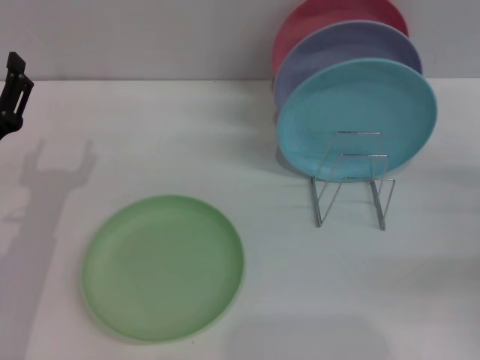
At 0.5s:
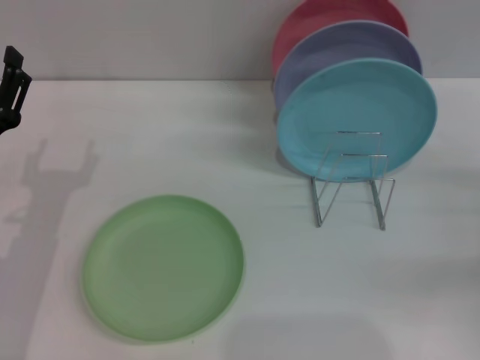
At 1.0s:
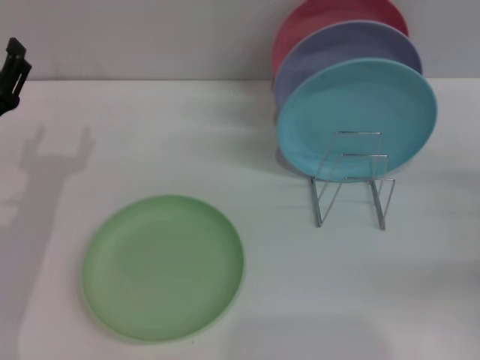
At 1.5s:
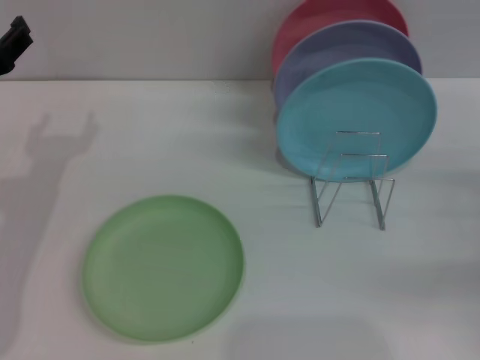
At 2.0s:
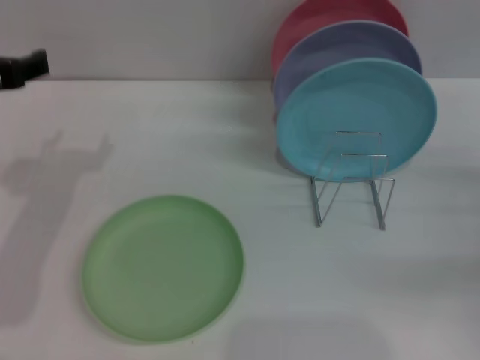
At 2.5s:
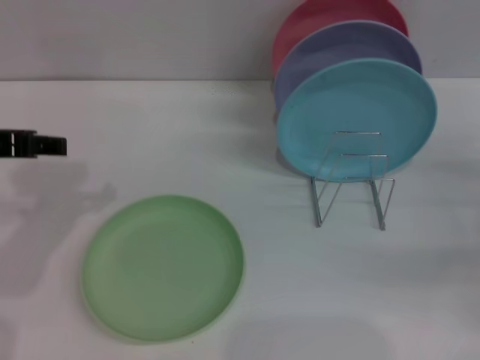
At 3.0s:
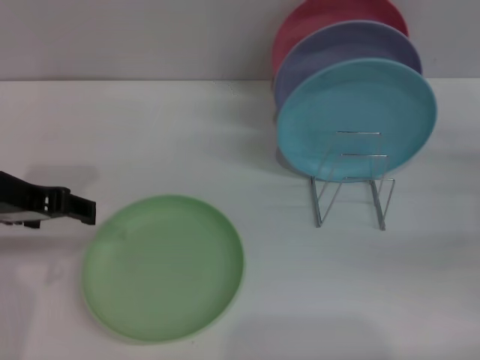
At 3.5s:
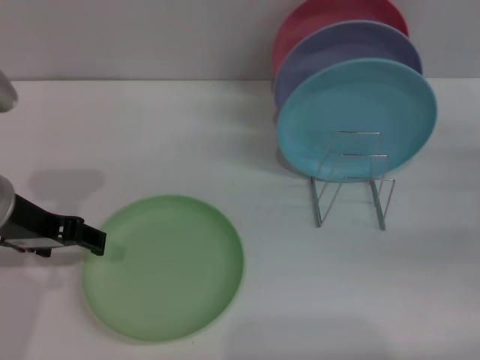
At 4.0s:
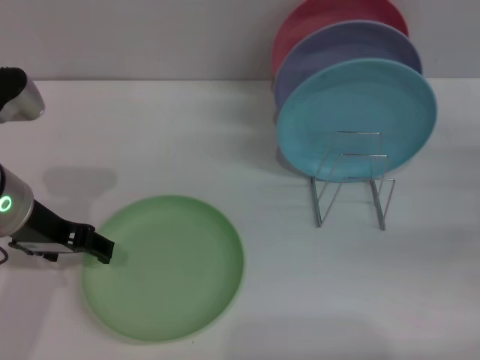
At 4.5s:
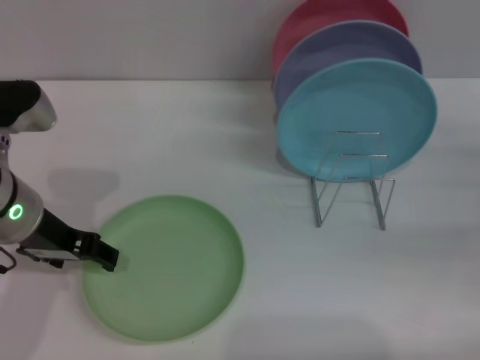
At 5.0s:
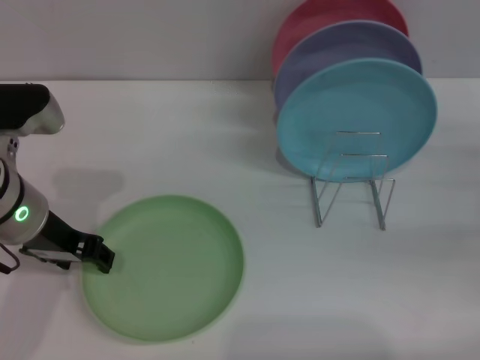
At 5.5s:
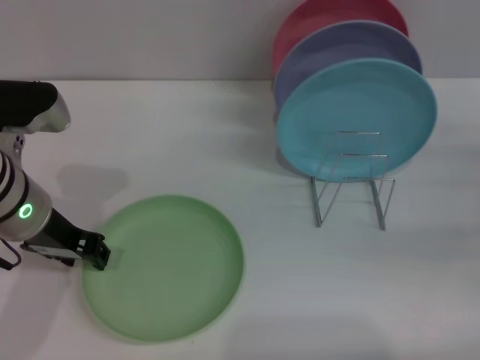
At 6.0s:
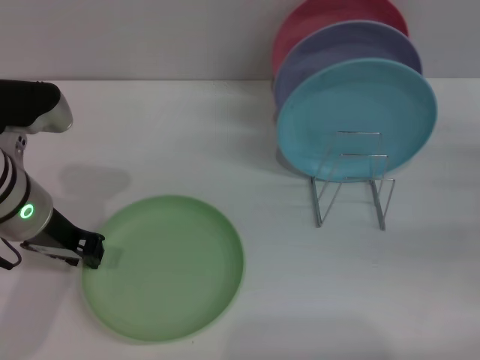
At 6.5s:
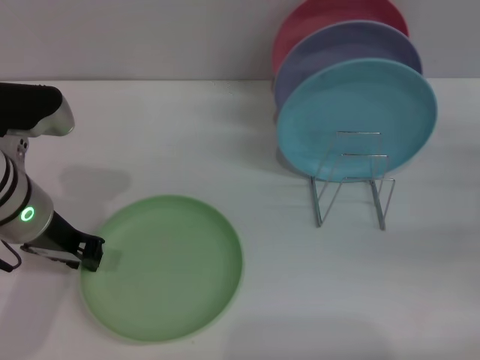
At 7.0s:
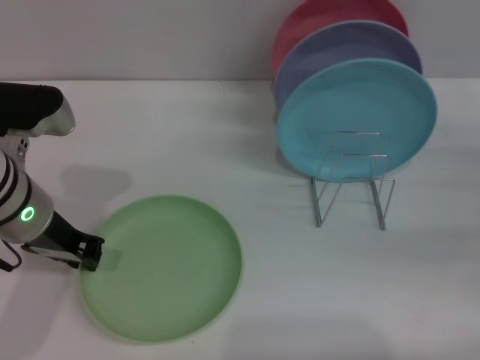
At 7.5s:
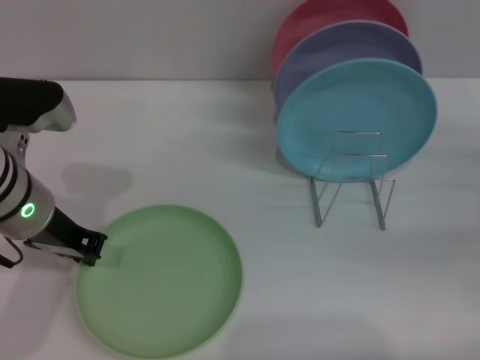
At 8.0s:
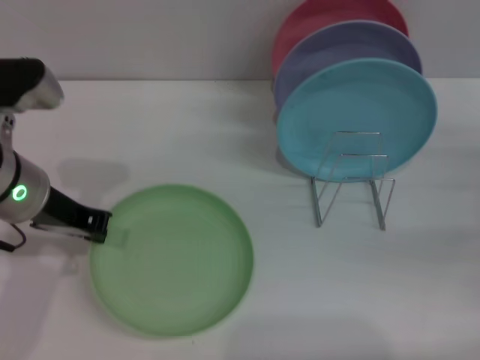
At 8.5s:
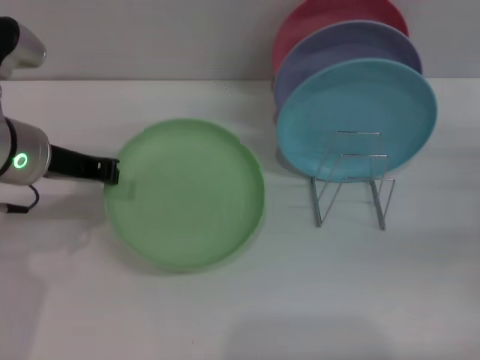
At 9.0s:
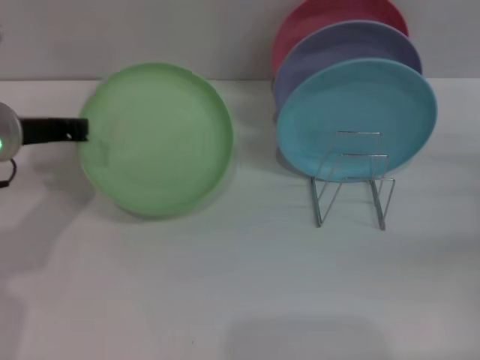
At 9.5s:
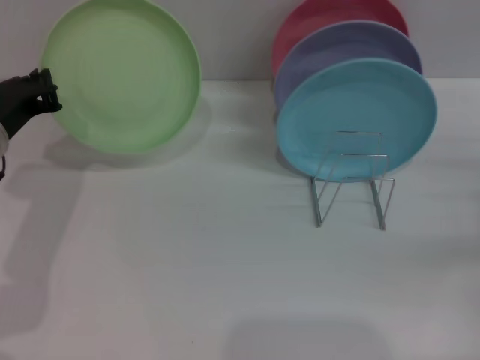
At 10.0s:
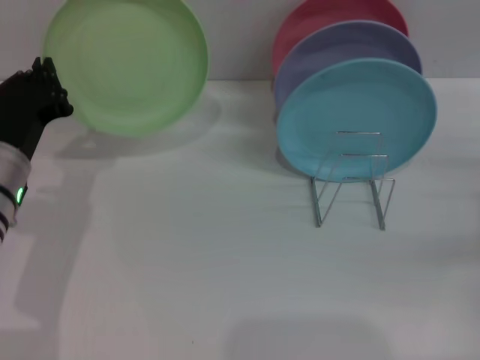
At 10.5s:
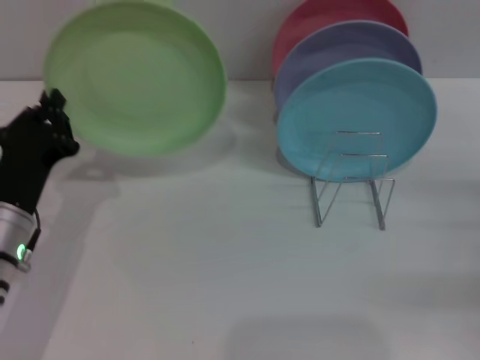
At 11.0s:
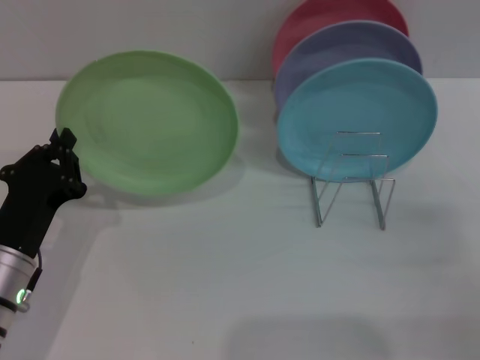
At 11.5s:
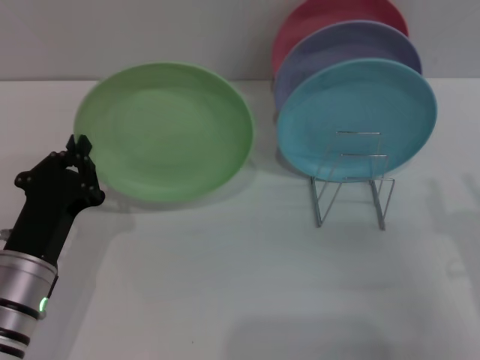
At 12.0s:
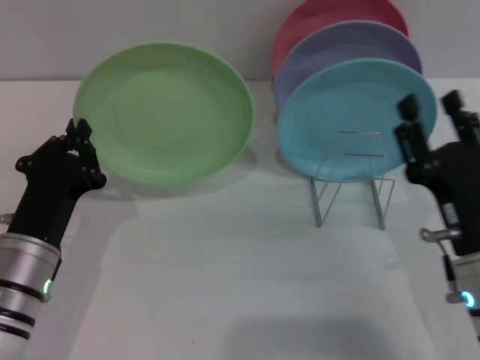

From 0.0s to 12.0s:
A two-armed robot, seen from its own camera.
Task of the whole recording: Grip the plate with one hand, pass it to the other, then set it on the shelf.
Step, from 0.0s to 8.5s: Pick up the plate with the left gripper.
From 0.0s to 2.0s: The left gripper goes some 15 cm upward.
From 2.0s to 4.0s: The left gripper is displaced downward by some 5 cm.
From 4.0s to 6.0s: The left gripper closes its fingers.
From 6.0s to 8.0s: The grippers stay close to where they were, moving slightly.
From 8.0s to 10.0s: The left gripper travels downward by roughly 5 cm.
From 10.0s to 12.0s: The right gripper is displaced to the left and backward by about 20 cm; the left gripper travels backward and downward by approximately 10 cm.

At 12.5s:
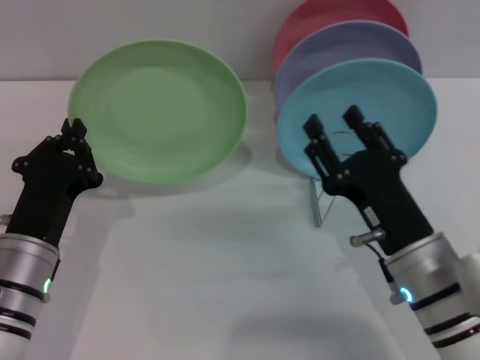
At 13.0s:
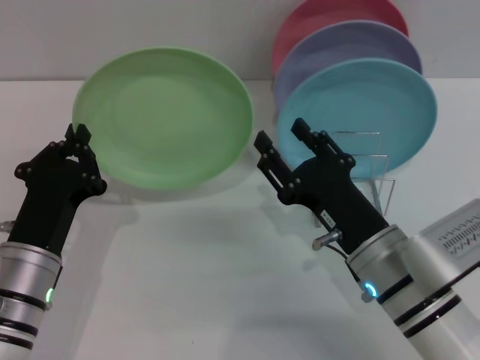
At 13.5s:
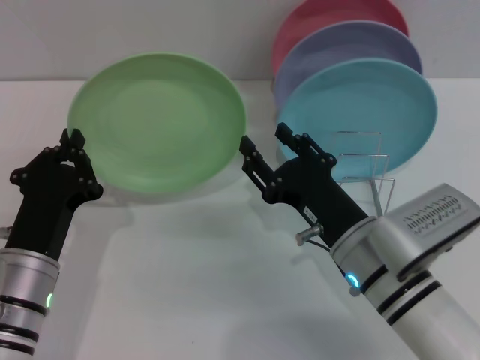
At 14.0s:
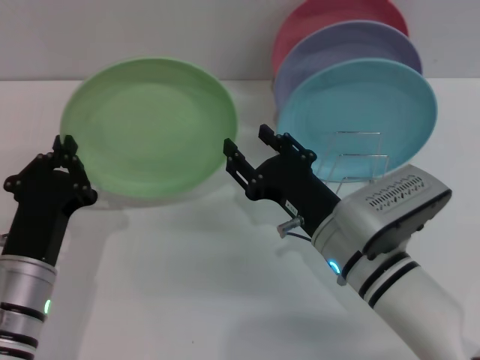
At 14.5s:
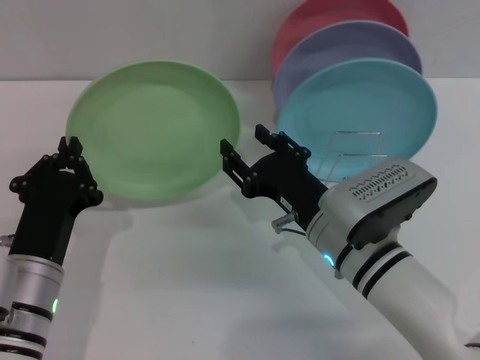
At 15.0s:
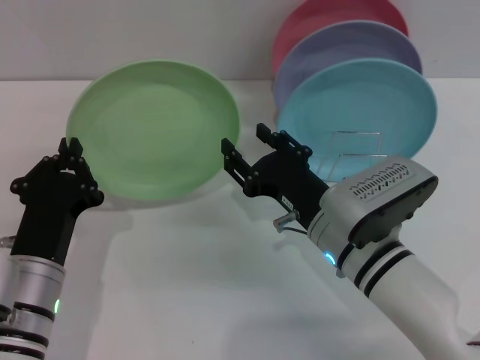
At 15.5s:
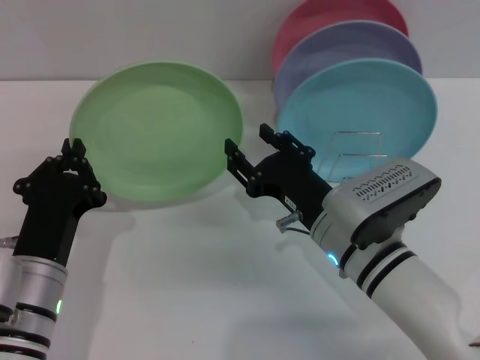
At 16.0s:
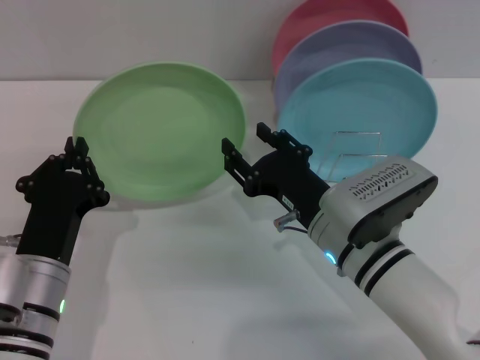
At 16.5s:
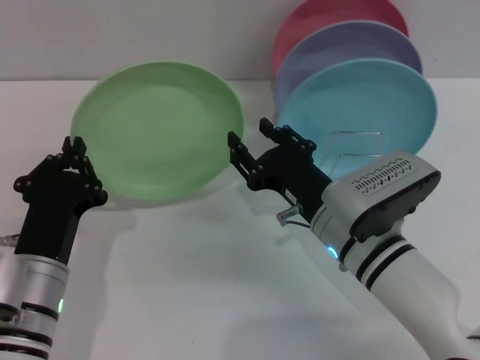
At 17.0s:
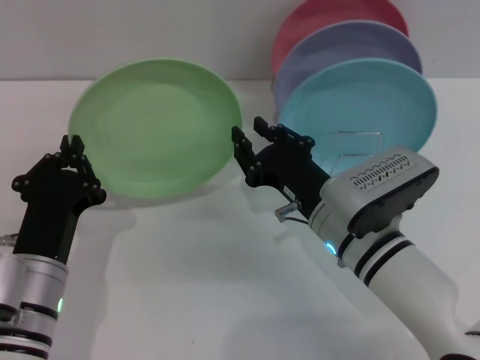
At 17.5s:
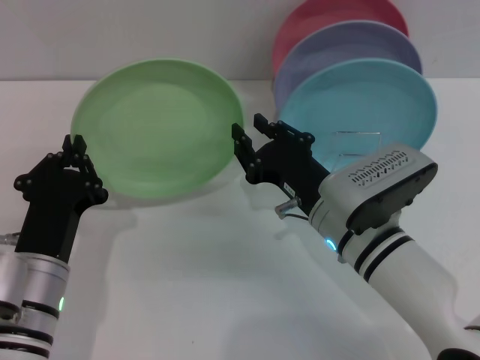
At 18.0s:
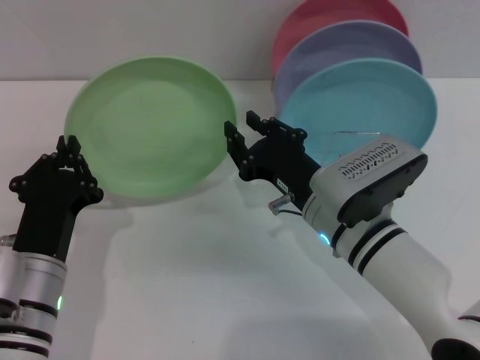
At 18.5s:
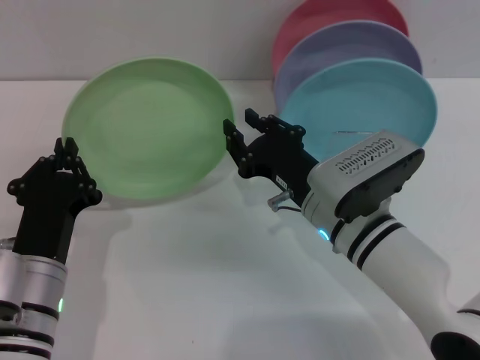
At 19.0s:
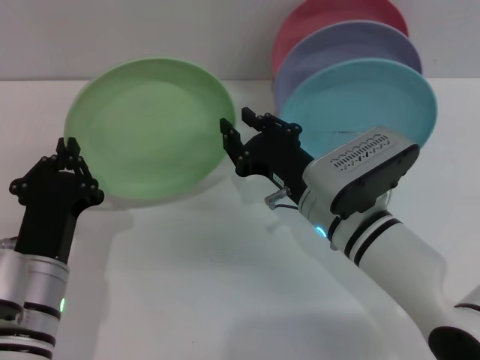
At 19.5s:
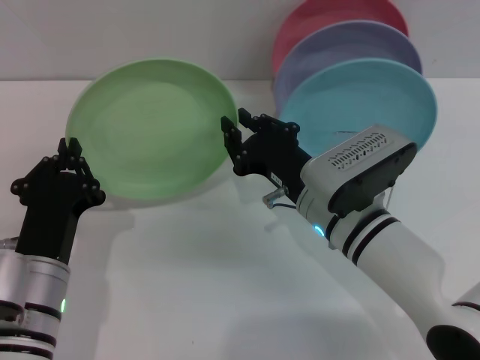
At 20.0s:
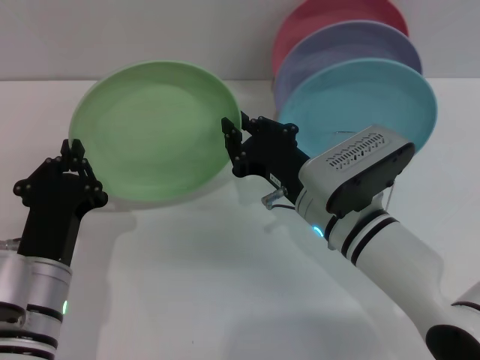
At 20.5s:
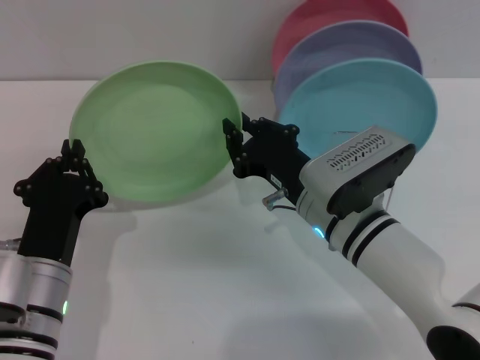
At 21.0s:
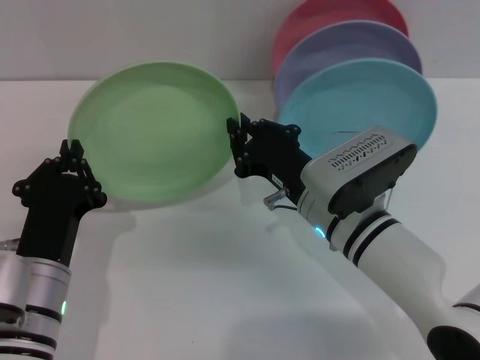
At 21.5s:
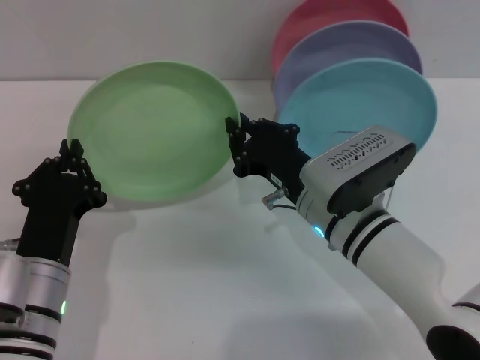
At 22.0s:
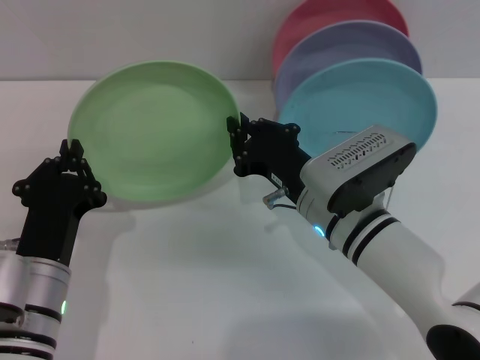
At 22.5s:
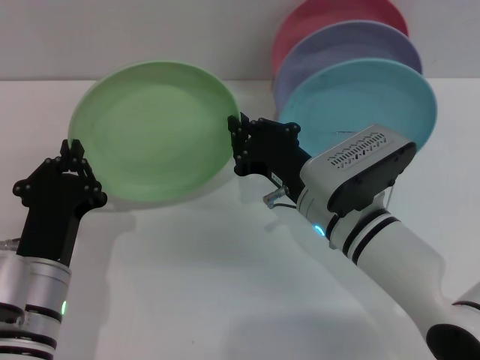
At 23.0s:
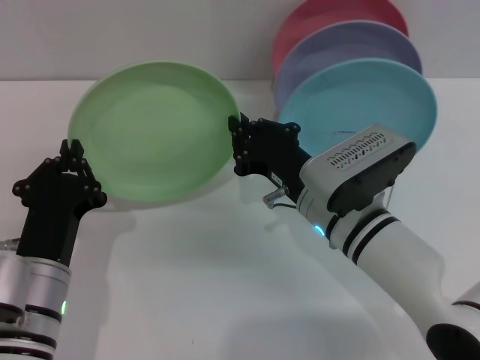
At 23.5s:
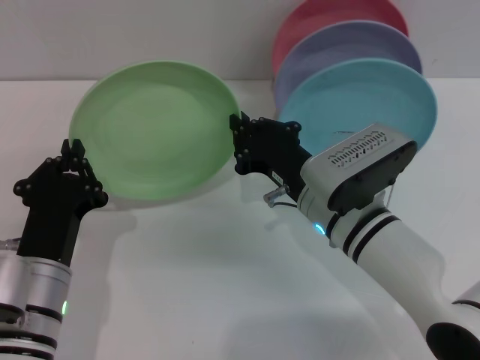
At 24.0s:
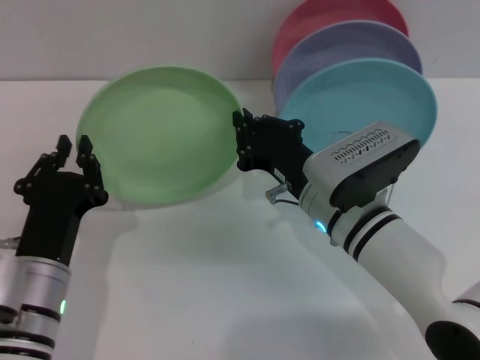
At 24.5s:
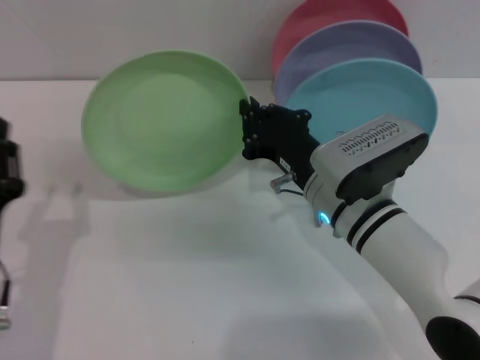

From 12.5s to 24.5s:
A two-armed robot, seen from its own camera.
Task of the whole recording: Grip the plate with one hand, pass it to the other, then set it on the shelf.
Step, from 12.5s to 24.0s: Pass the plate from the left gripper to the right gripper.
From 12.5s to 14.5s: The right gripper goes about 5 cm to the left and forward.
From 14.5s to 16.5s: Both grippers stay put.
From 16.5s to 18.5s: There are only small adjustments of the grippers.
From 18.5s to 22.5s: The two grippers keep their place.
From 22.5s to 24.5s: The left gripper shifts by roughly 5 cm, and opens.

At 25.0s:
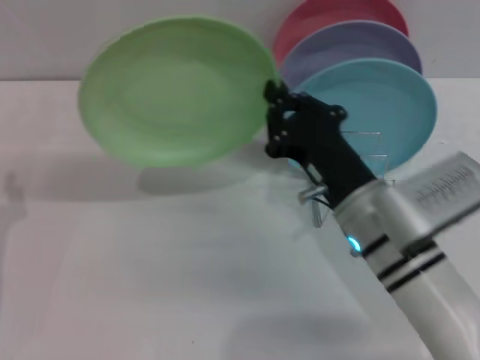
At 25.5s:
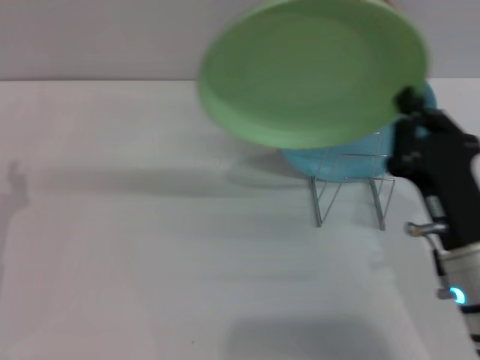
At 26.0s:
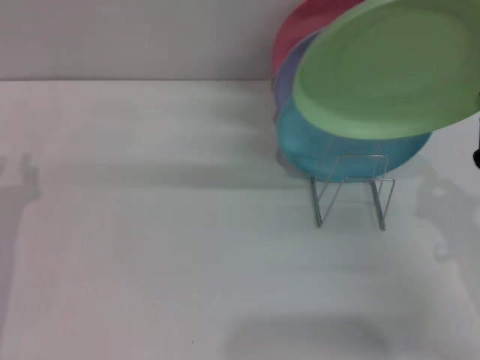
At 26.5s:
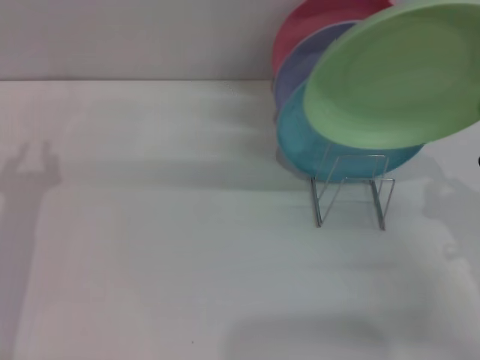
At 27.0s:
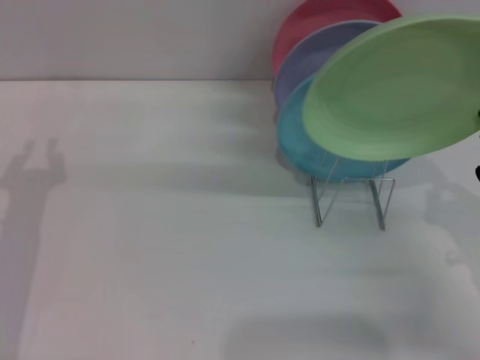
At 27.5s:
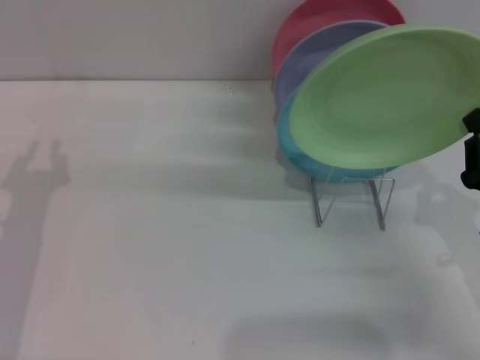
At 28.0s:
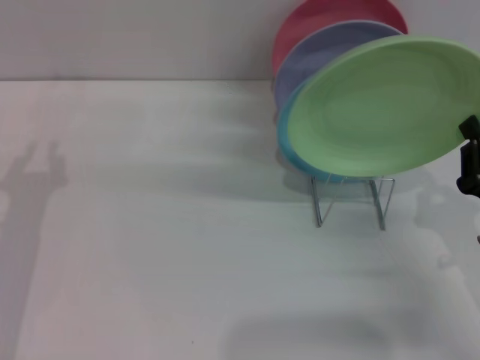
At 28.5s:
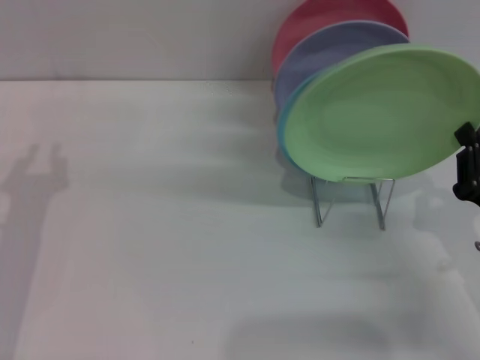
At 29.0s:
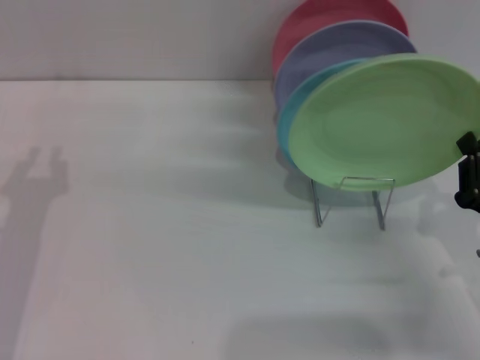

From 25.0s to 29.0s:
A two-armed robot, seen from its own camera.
Task of the whole recording: Grip the plate with one hand, pass it to the other, then set it on the shelf.
From 25.0s to 27.0s: The right gripper moves to the right, some 15 cm; the left gripper shifts about 5 cm forward.
From 27.0s to 29.0s: There are only small adjustments of the grippers.
